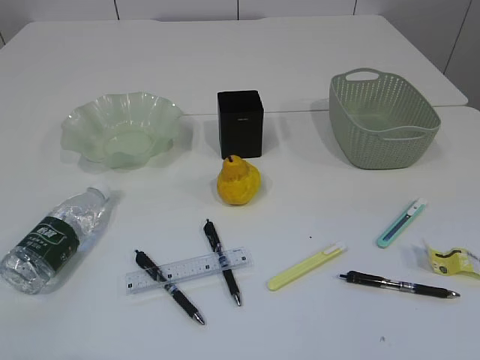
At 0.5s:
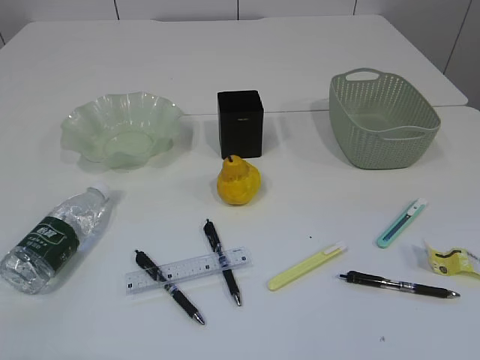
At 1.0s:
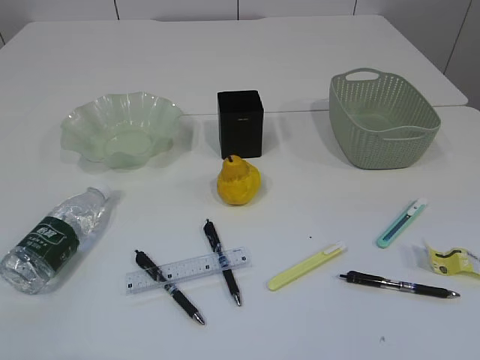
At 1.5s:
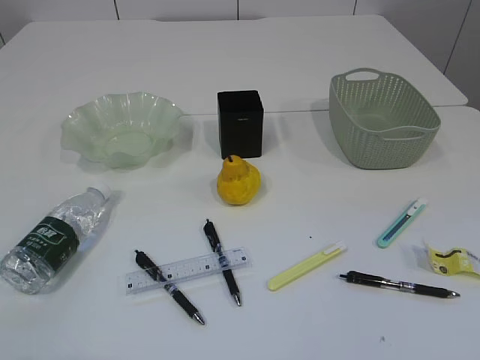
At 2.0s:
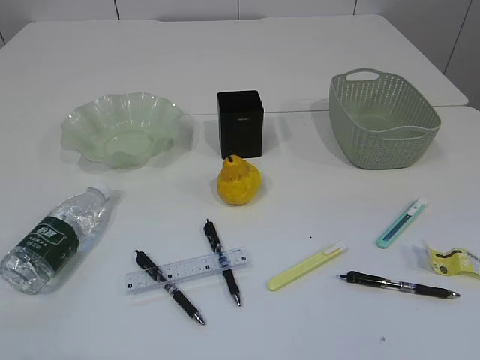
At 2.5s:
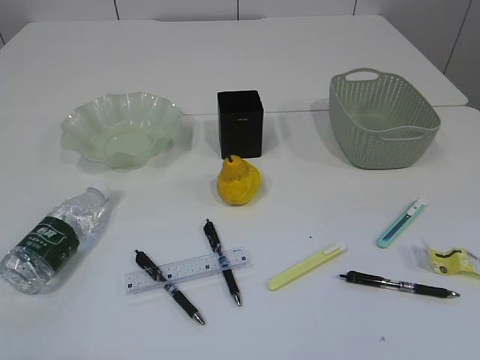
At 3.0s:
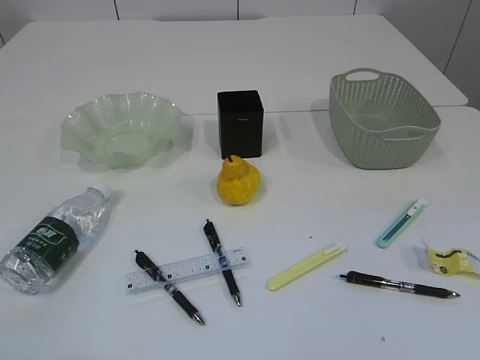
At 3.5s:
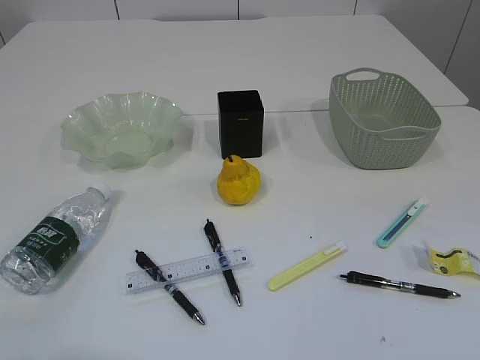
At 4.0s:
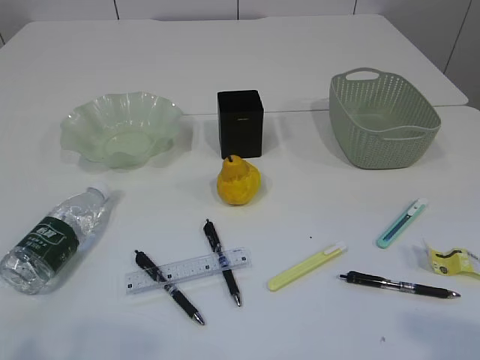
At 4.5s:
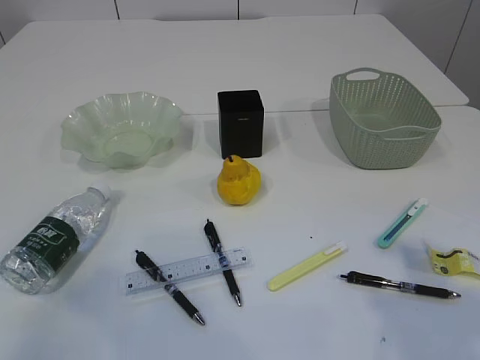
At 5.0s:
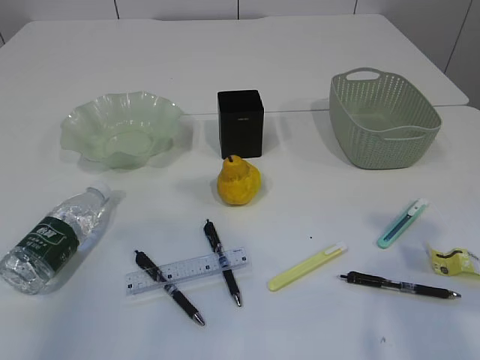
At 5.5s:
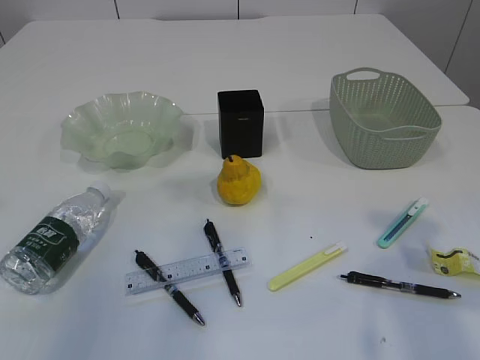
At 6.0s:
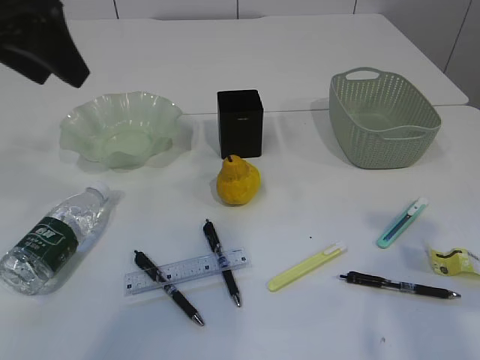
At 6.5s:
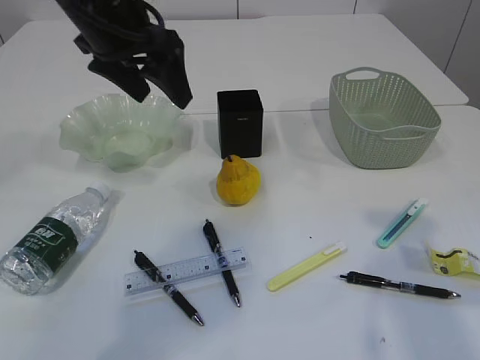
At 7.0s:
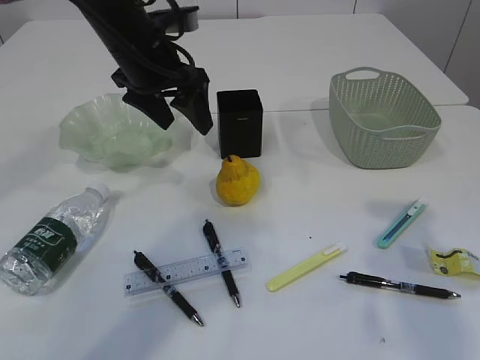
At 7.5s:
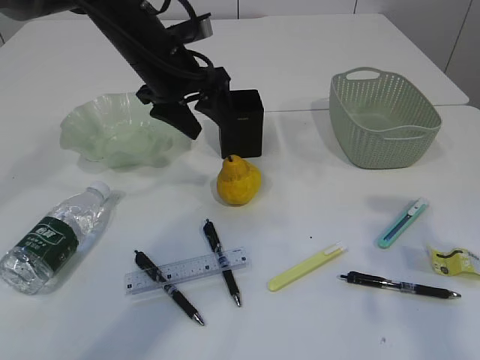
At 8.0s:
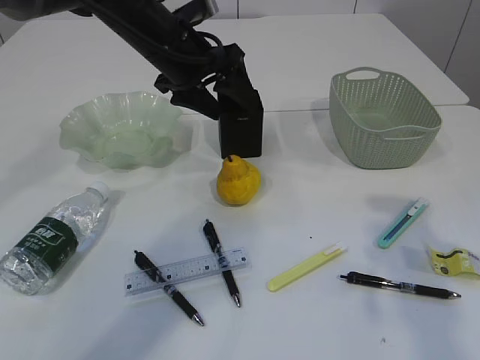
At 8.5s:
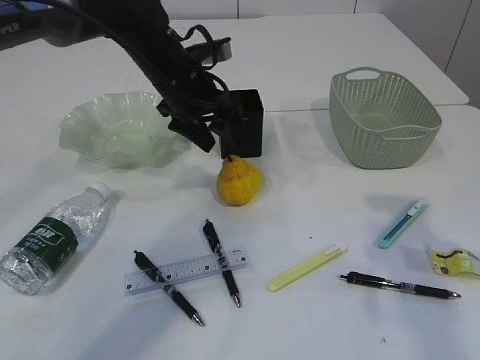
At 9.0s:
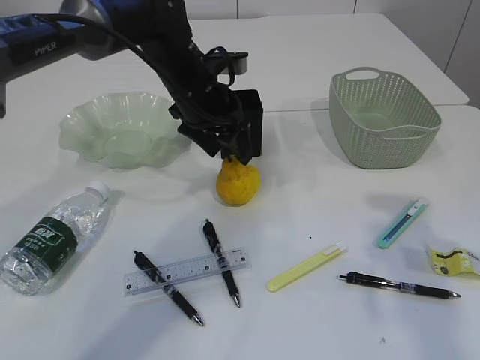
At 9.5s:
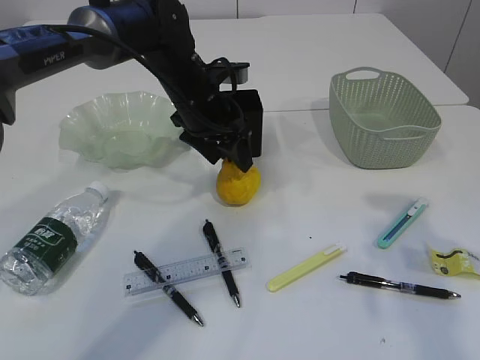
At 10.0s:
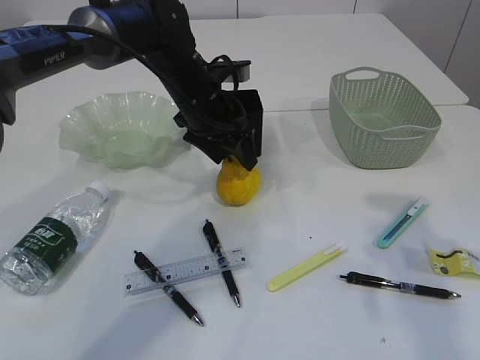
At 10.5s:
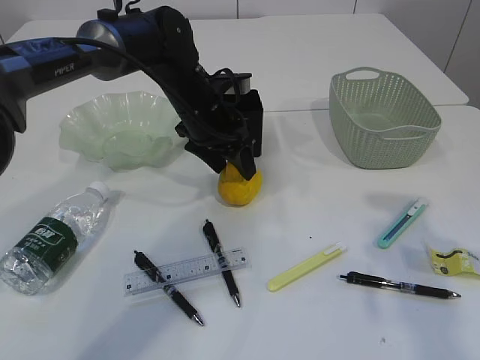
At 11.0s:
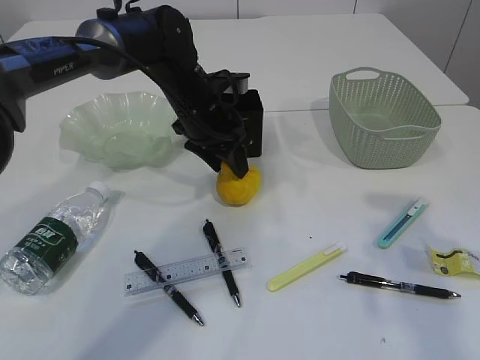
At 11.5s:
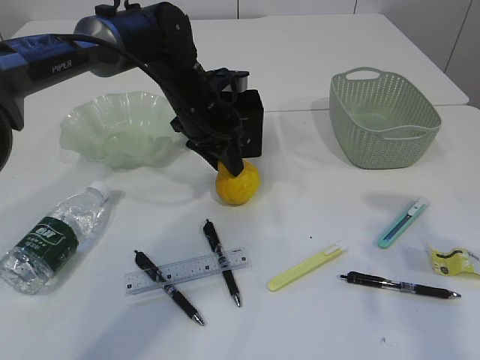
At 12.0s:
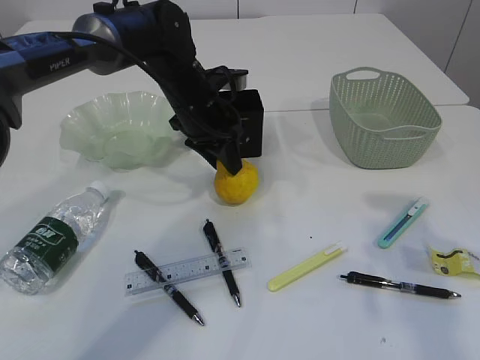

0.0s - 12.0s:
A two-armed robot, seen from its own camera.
4.0s - 6.0s: The left gripper moves forward, some 30 cm, while the right gripper goes about 15 cm forward.
6.0s - 8.0s: The right gripper moves forward, some 5 cm. Meanwhile the left gripper heads forward, to the right and downward, covering roughly 20 cm.
8.0s - 10.0s: The left gripper heads downward, covering roughly 5 cm.
10.0s - 12.0s: The left gripper closes up.

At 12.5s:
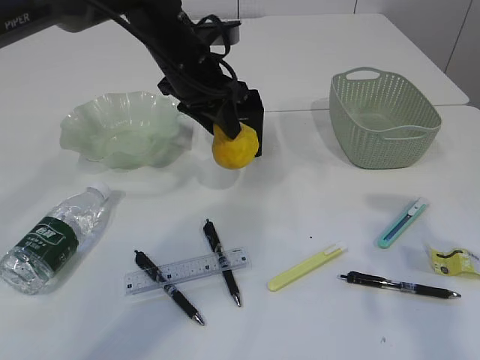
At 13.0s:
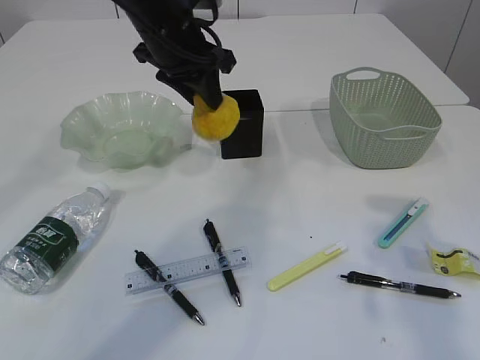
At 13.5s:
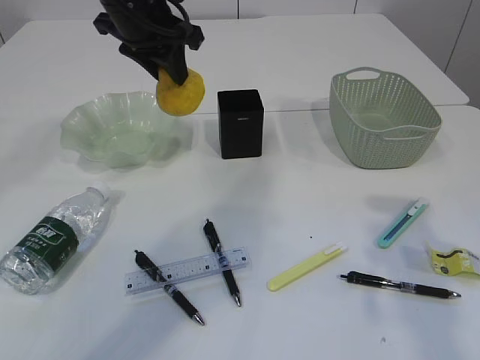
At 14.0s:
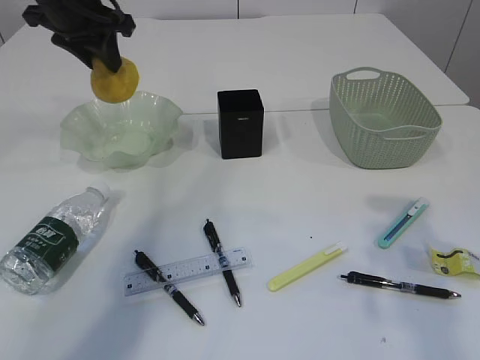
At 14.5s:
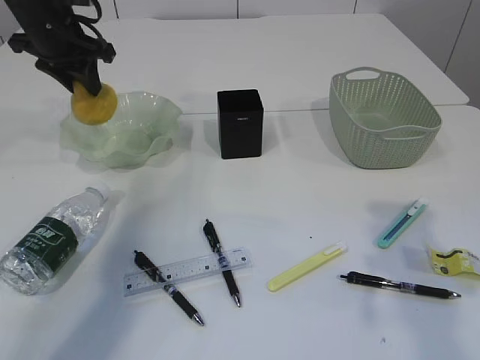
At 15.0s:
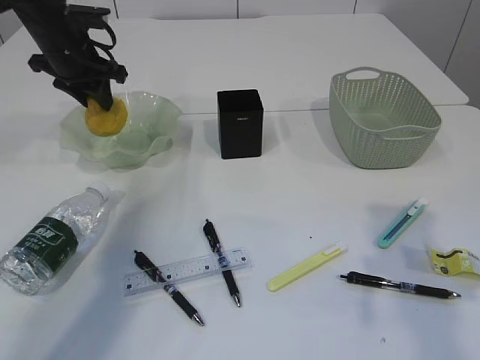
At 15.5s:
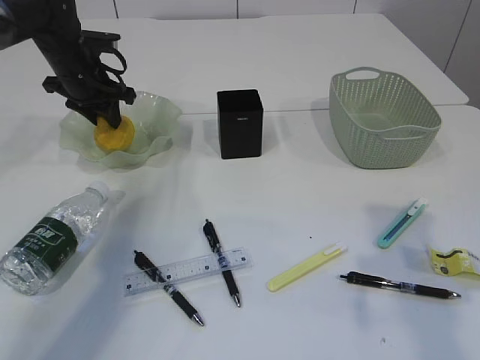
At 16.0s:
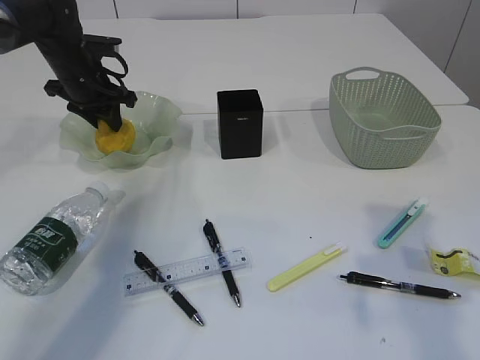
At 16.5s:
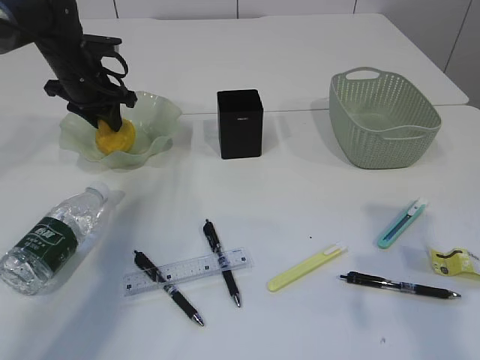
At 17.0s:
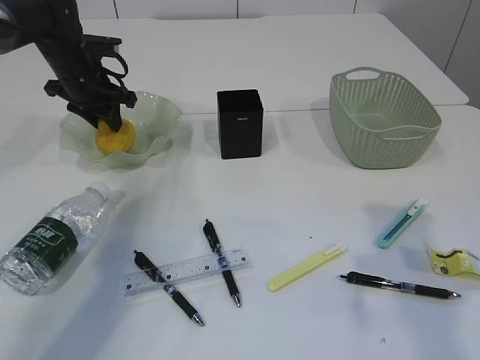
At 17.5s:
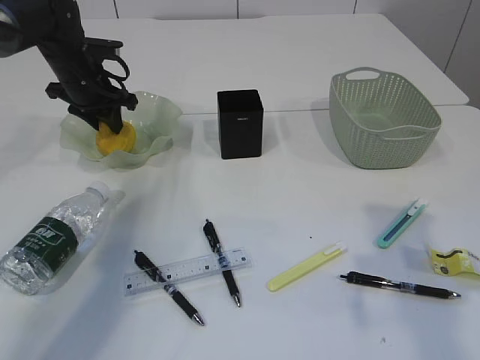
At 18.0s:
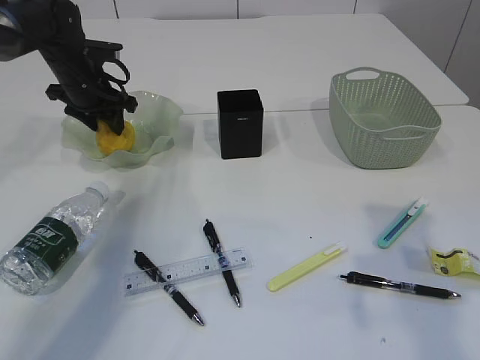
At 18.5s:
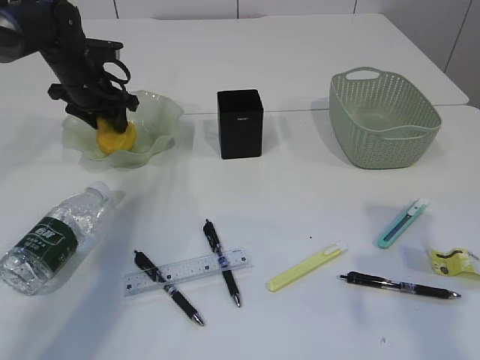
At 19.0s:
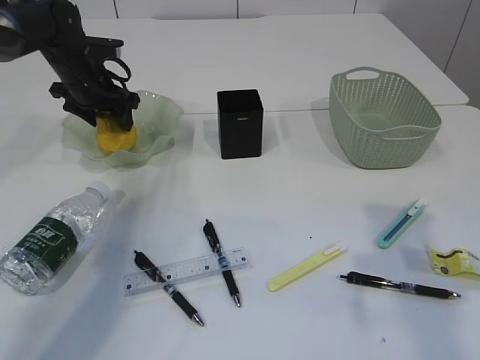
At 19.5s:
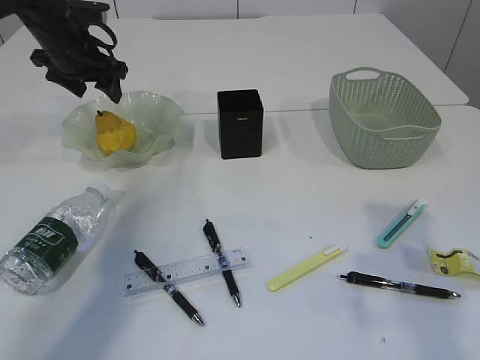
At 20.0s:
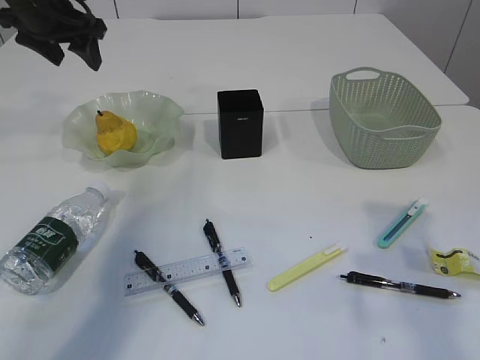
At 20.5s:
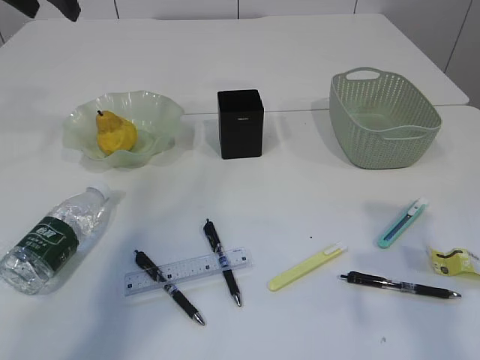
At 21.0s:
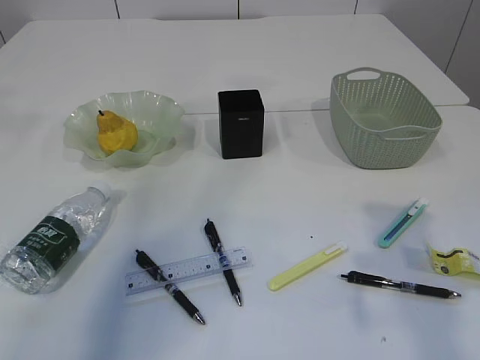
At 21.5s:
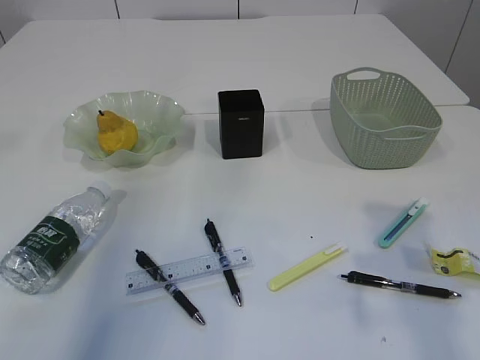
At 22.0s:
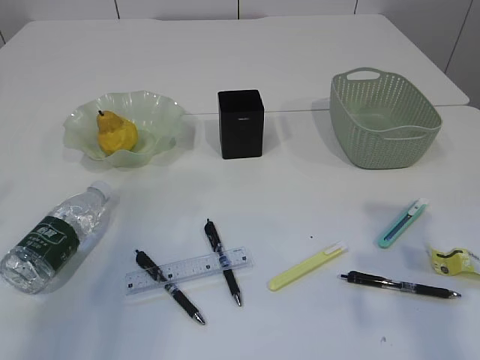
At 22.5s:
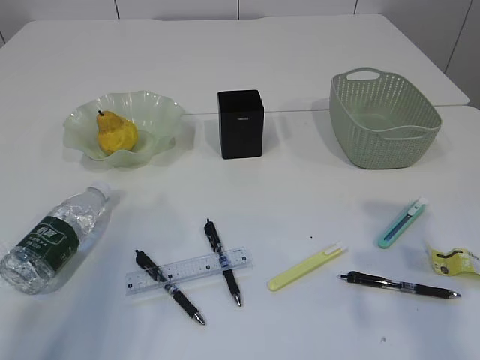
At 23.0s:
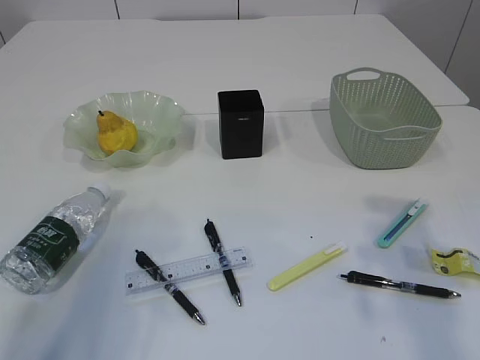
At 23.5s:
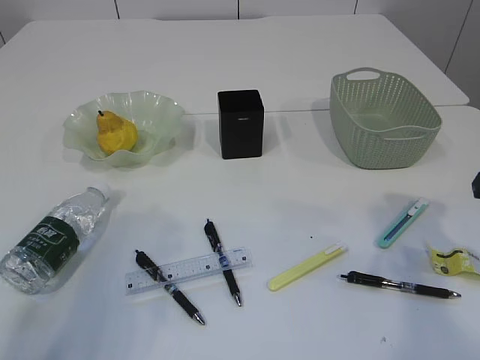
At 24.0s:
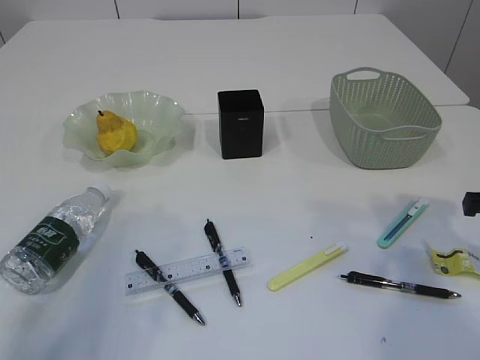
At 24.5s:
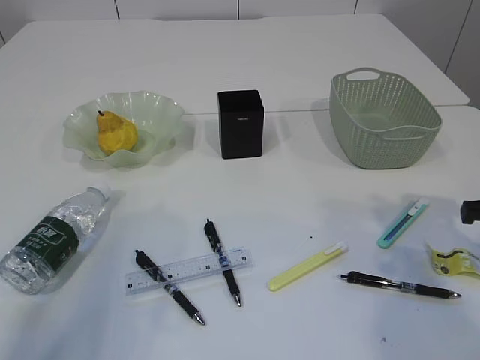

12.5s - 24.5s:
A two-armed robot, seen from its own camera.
Step, 12.5s - 19.5s: Place the pear in the plate.
12.5s - 14.5s: The left gripper shifts roughly 15 cm to the left.
14.5s - 16.5s: The left gripper moves downward, approximately 10 cm.
16.5s - 18.5s: The grippers move only a little.
18.5s - 20.5s: The left gripper heads upward and backward, covering approximately 20 cm.
20.5s - 22.5s: The left gripper shifts about 30 cm backward and downward.
22.5s - 24.5s: The right gripper moves downward and forward, some 10 cm.

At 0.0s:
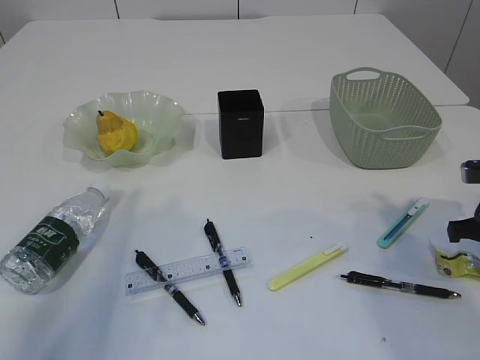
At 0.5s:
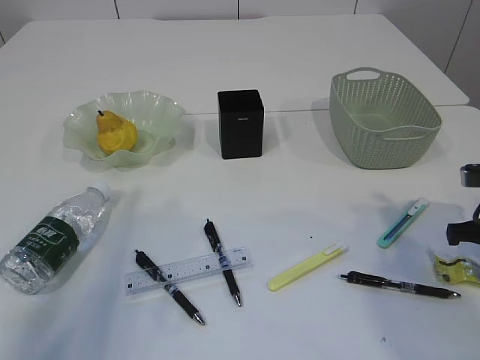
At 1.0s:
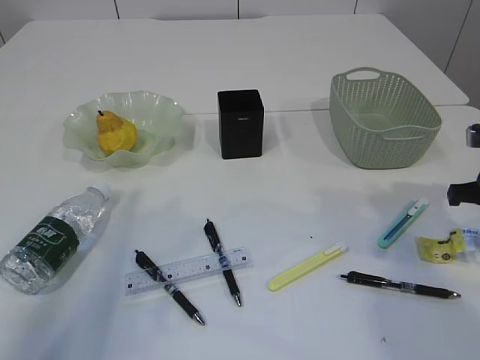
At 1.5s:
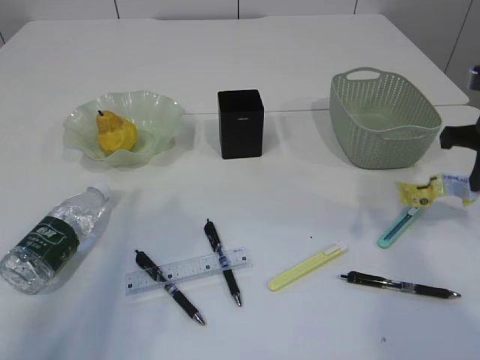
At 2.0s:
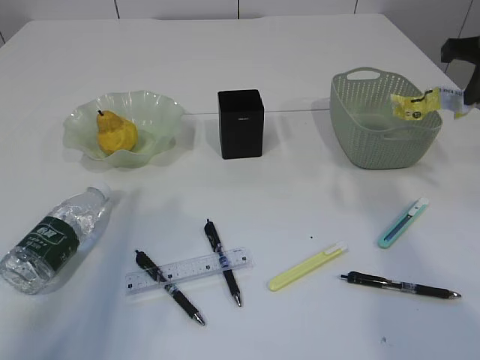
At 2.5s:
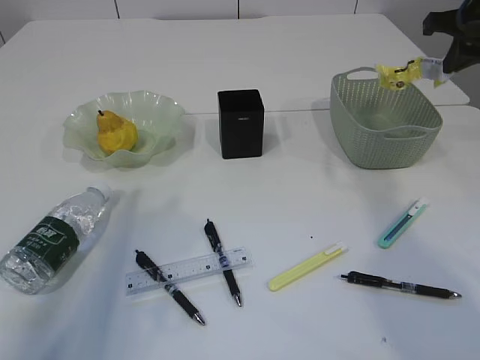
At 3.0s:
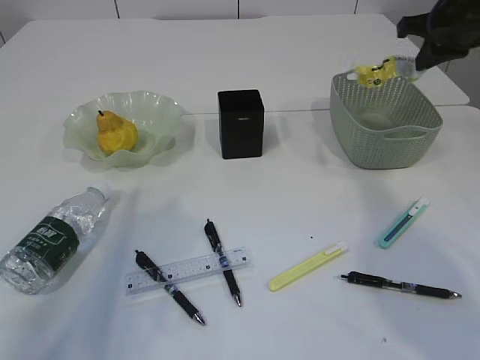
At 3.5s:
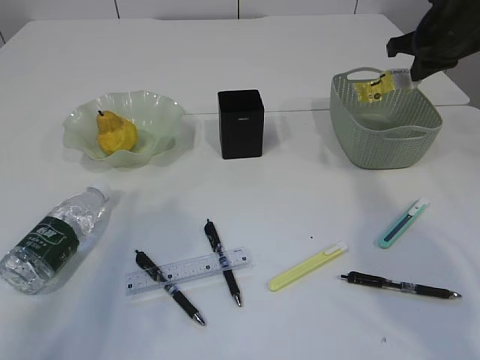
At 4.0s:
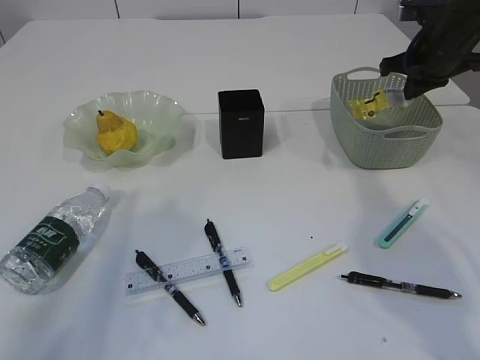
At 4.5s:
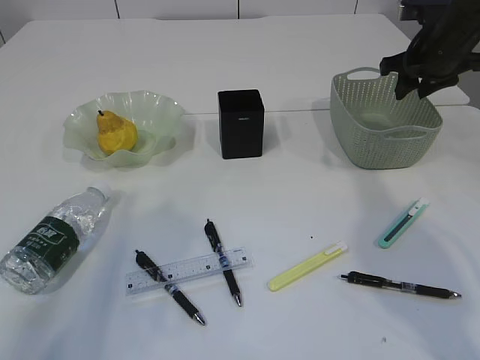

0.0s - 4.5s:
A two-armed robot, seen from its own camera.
0.0s - 2.0s: The right gripper travels upward and forward by some 20 cm.
2.0s - 4.5s: The right gripper goes about 15 cm forward and downward, and opens.
